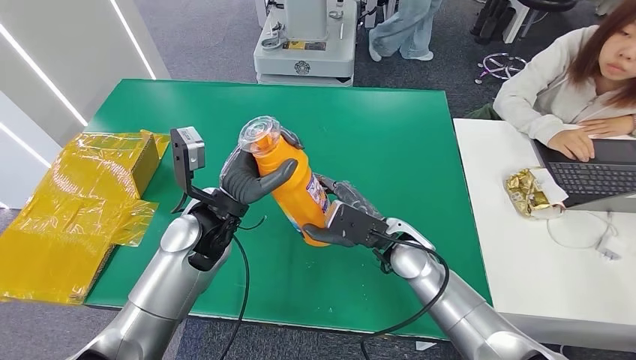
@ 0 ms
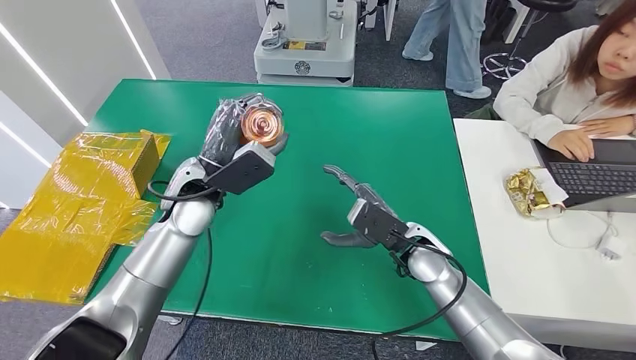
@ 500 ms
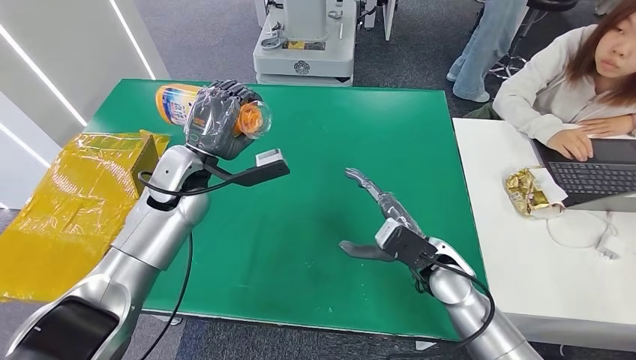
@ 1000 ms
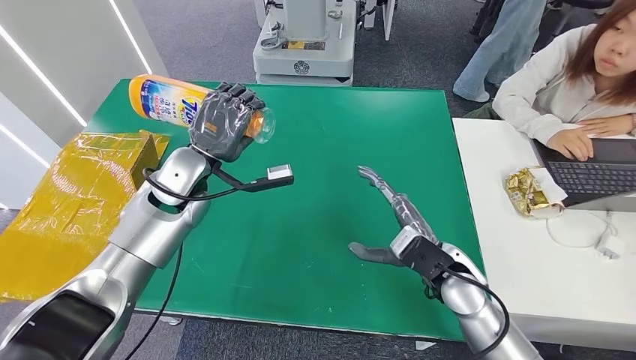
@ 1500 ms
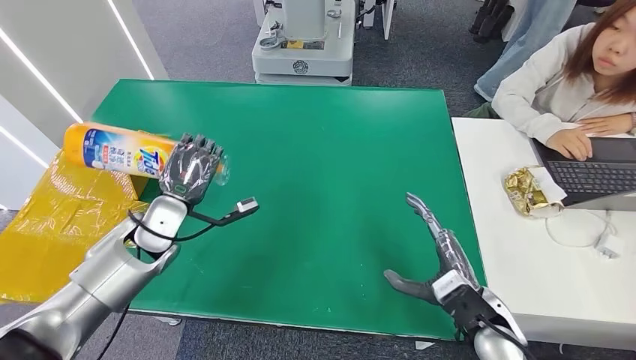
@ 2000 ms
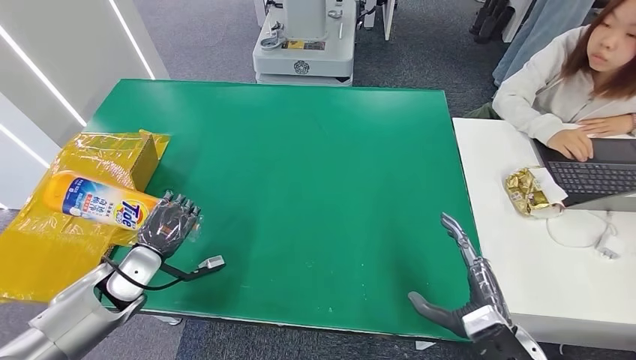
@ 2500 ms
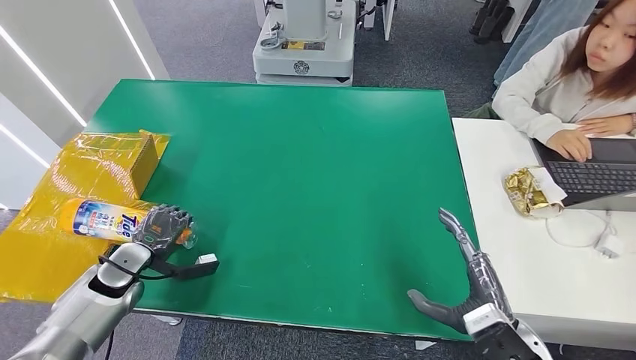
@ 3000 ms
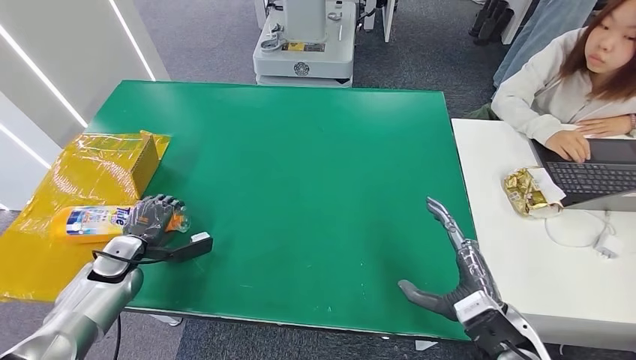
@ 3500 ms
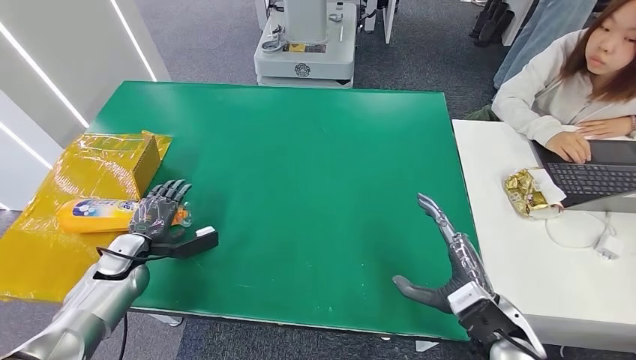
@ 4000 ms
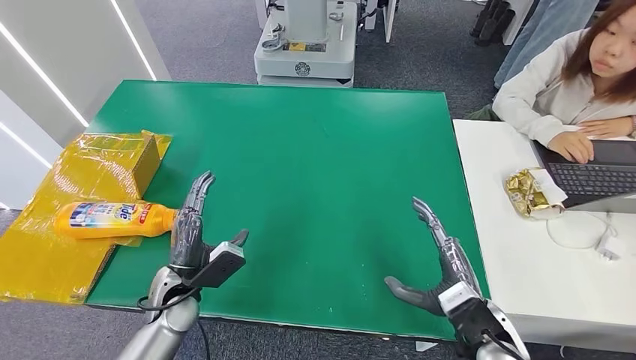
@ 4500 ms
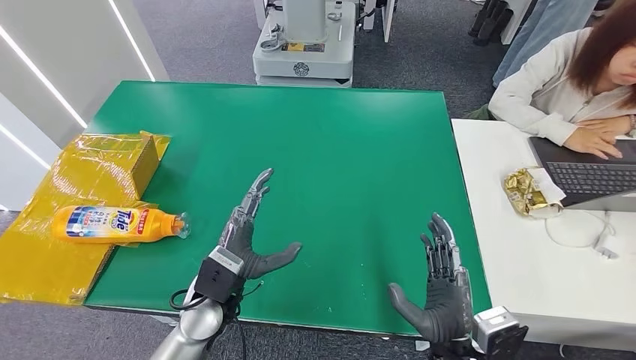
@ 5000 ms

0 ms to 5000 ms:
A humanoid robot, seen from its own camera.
Step, 0 ms to 5000 ms: Turn the bottle to the front side.
2500 ms to 5000 ms: The left hand travels to the right by about 20 cm. The right hand travels to the left by about 10 cm.
